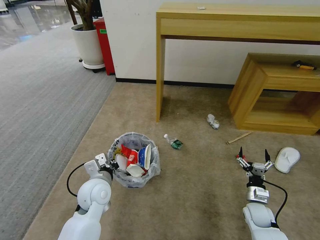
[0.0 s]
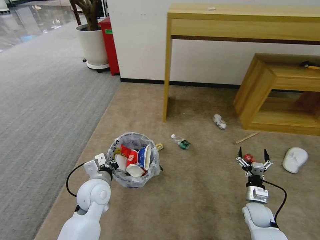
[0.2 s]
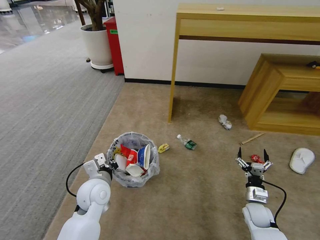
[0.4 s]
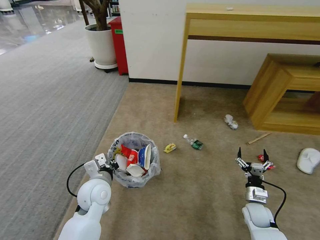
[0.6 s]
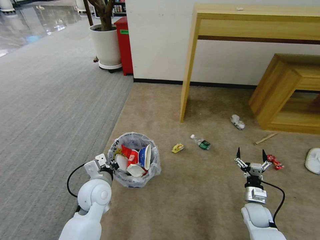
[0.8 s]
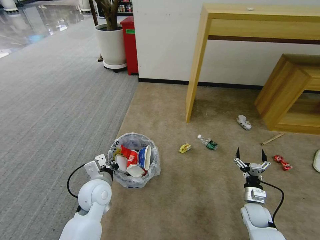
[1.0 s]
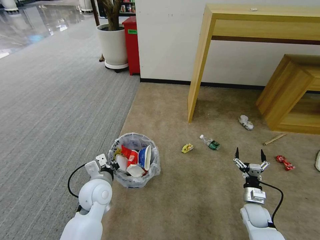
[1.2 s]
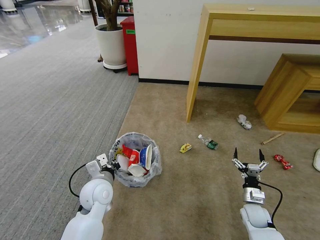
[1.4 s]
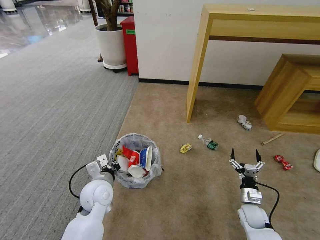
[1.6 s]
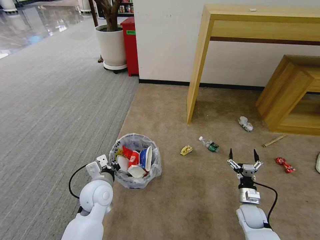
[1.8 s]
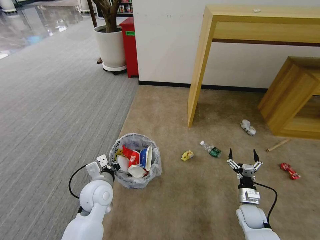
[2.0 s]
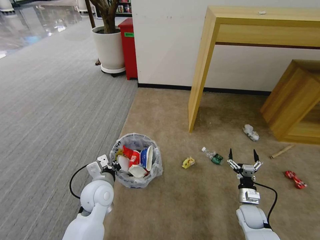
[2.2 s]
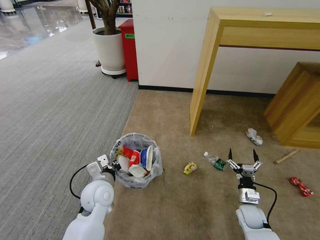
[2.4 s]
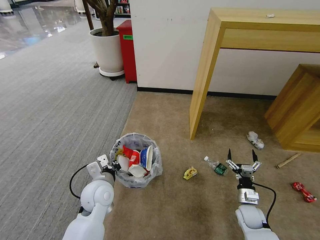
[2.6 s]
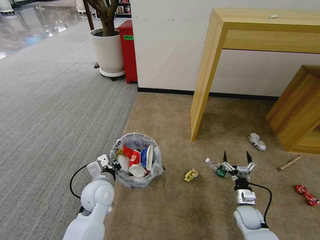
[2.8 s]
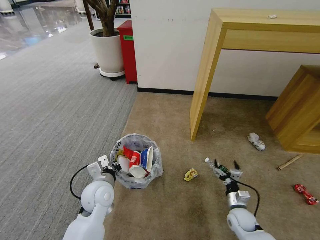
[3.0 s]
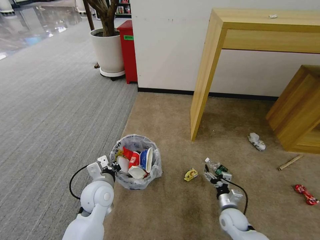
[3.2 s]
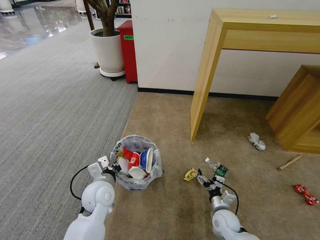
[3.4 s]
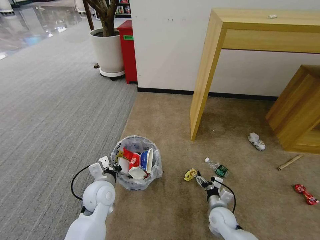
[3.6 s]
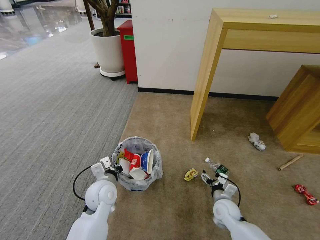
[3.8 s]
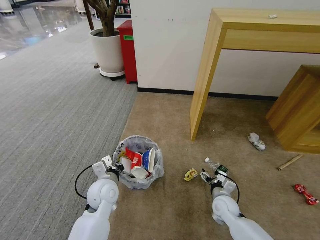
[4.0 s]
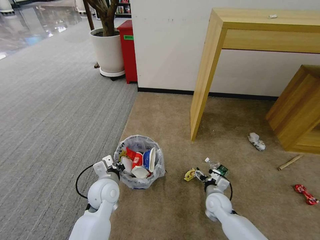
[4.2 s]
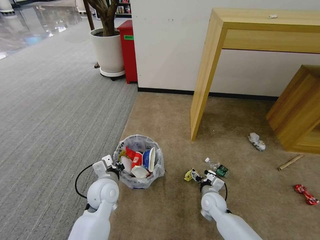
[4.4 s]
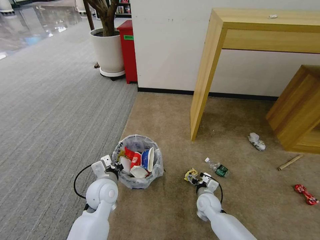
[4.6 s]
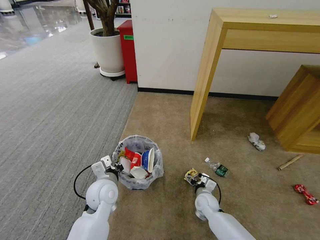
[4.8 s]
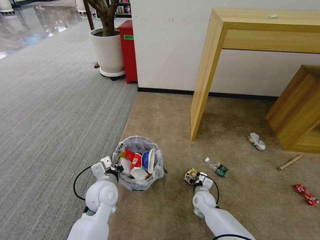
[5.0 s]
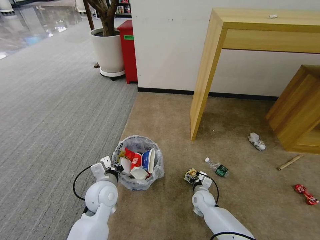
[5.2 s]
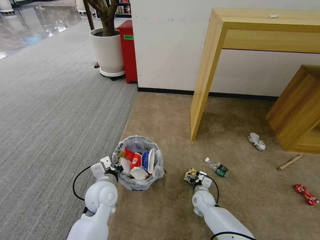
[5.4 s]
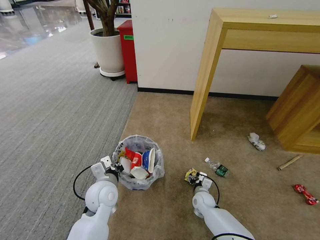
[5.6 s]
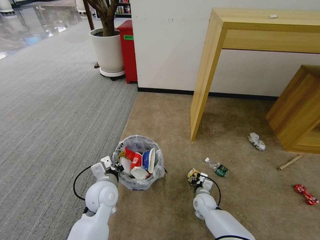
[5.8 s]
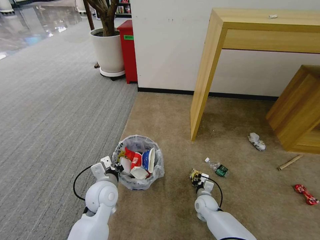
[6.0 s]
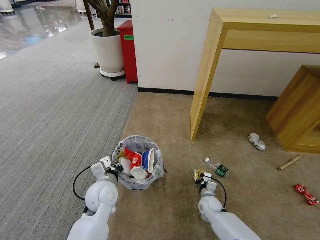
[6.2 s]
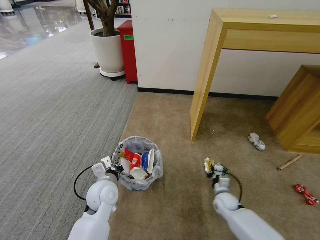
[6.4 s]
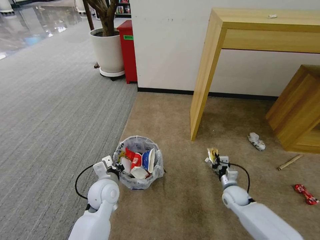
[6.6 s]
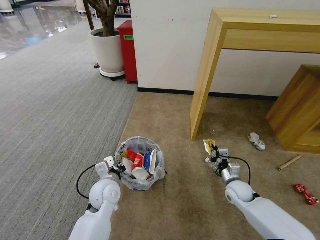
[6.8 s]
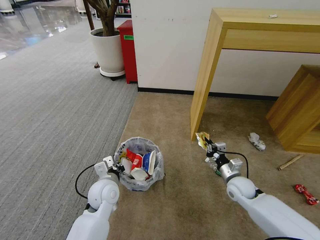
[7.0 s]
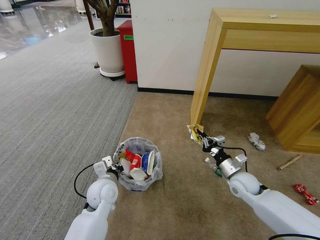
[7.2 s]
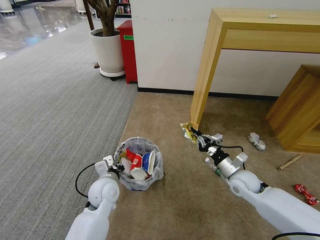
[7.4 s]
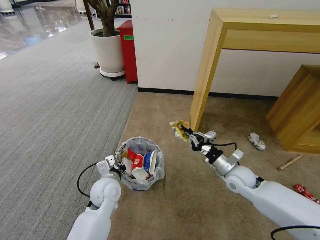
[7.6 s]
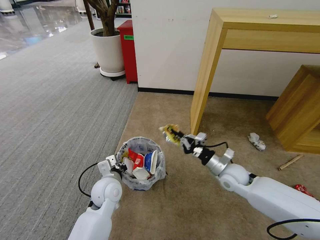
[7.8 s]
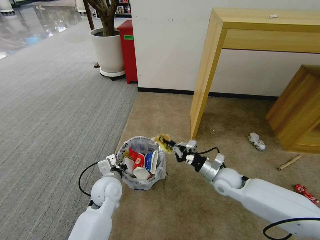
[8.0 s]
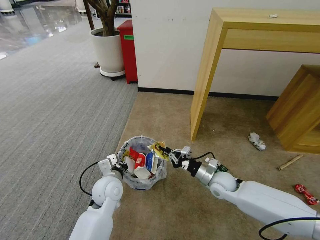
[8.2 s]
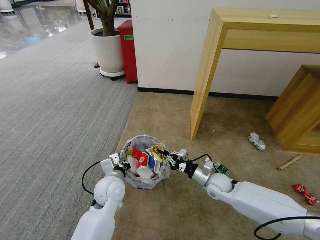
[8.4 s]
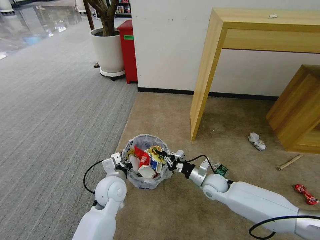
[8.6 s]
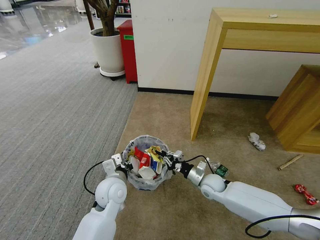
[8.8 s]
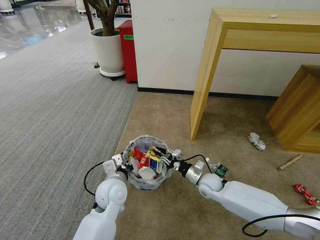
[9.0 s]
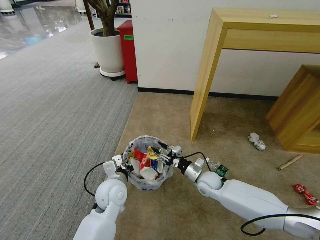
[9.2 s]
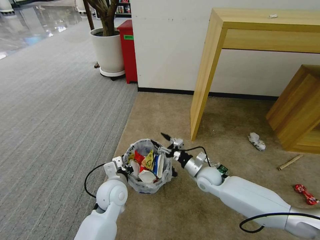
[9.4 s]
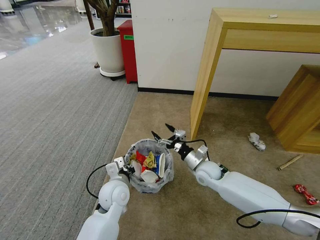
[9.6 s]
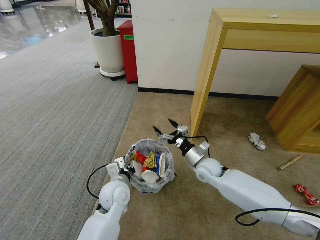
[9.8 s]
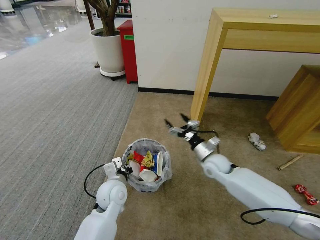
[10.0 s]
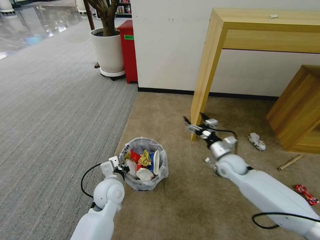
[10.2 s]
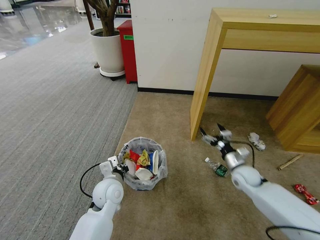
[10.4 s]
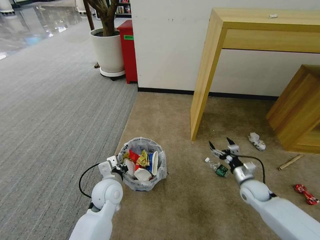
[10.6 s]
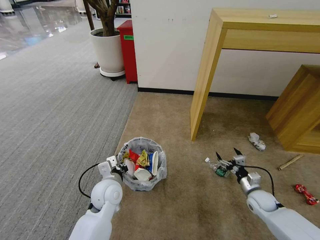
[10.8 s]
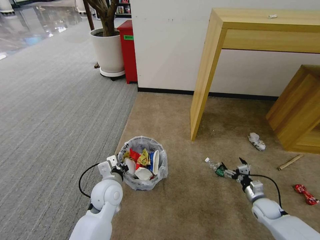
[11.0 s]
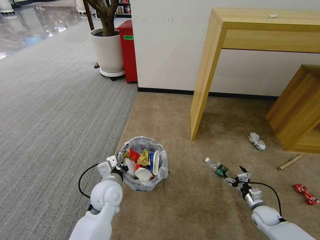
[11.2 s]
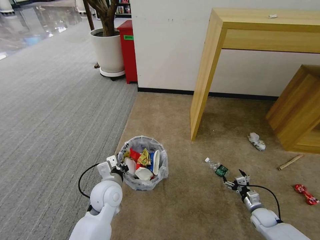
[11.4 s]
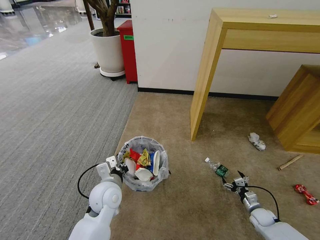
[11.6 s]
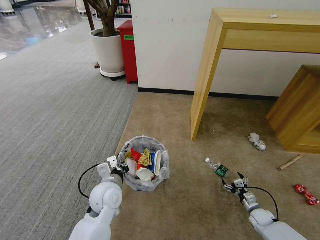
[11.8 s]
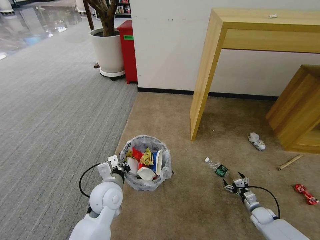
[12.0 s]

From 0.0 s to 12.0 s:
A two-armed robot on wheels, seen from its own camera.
Task of the whole recording: Pick up the trash bin and place the garbage on the floor into it.
From 3.0 s to 4.4 s: The right gripper heads to the left and forward, covering some 10 cm.
From 4.4 s to 6.0 s: The right gripper is displaced downward by roughly 10 cm, and closes its fingers.
From 6.0 s to 7.6 s: The right gripper moves upward, roughly 20 cm.
From 7.6 s to 9.0 s: The right gripper goes some 15 cm downward and to the left.
From 9.0 s to 10.4 s: The right gripper goes approximately 15 cm to the right, and opens its fingers.
From 10.4 s to 12.0 s: The right gripper heads downward, to the right and backward, covering approximately 25 cm.

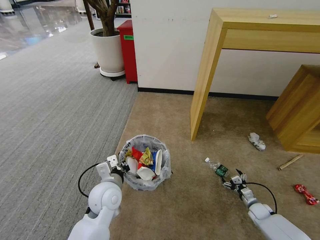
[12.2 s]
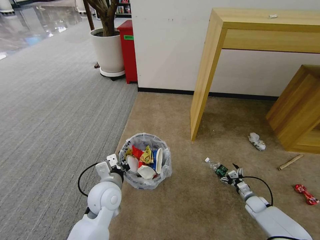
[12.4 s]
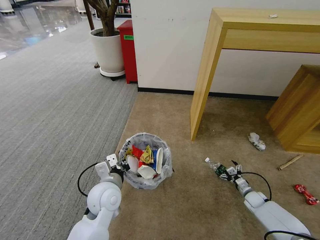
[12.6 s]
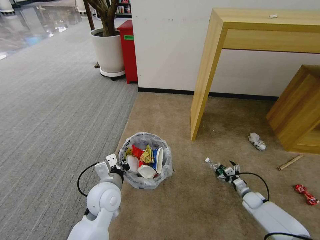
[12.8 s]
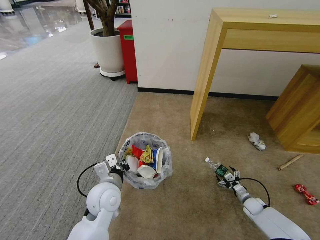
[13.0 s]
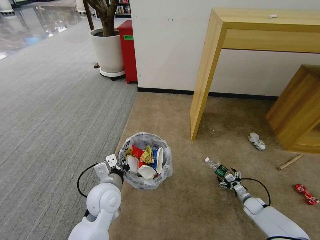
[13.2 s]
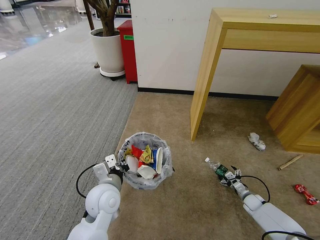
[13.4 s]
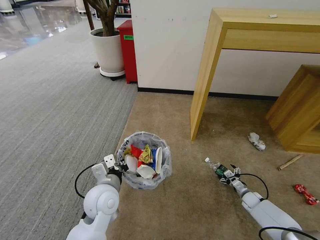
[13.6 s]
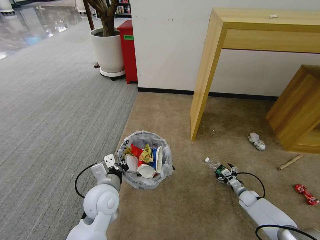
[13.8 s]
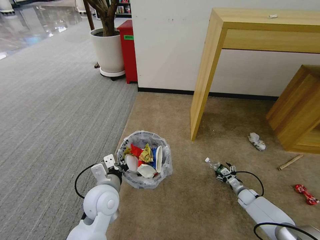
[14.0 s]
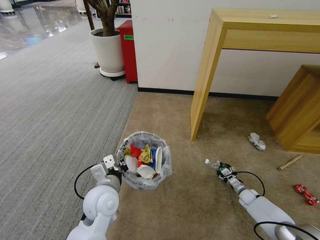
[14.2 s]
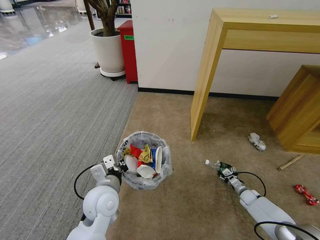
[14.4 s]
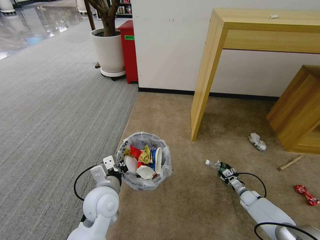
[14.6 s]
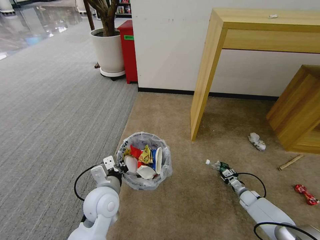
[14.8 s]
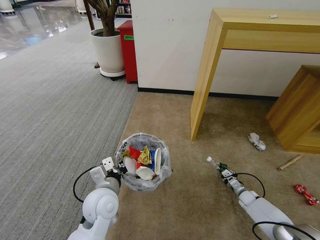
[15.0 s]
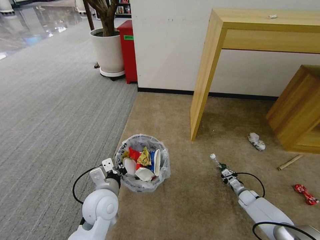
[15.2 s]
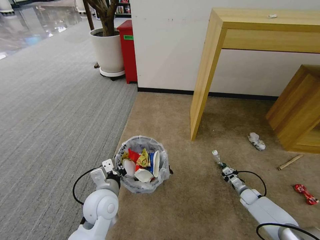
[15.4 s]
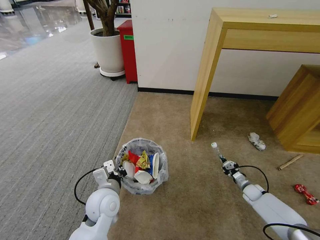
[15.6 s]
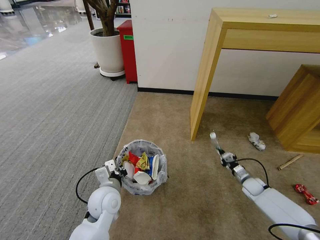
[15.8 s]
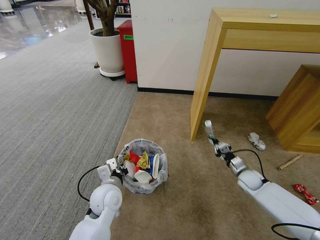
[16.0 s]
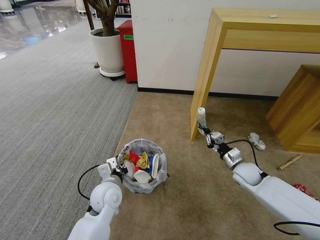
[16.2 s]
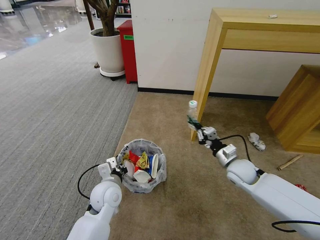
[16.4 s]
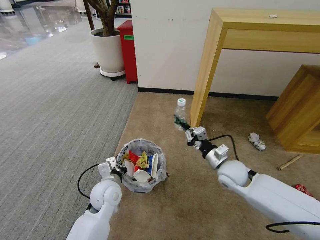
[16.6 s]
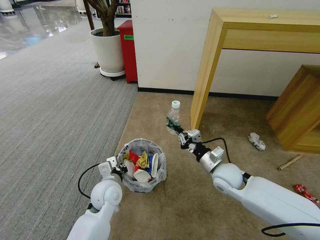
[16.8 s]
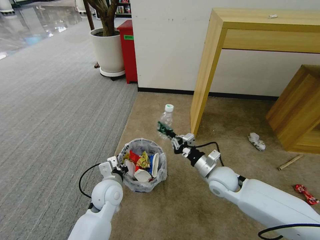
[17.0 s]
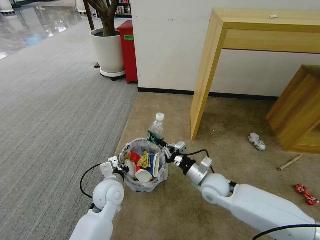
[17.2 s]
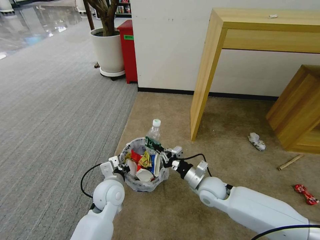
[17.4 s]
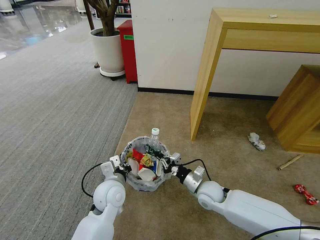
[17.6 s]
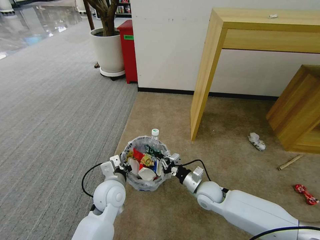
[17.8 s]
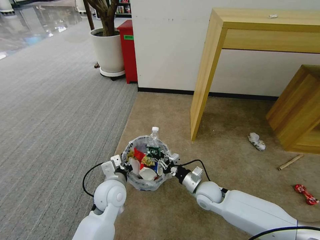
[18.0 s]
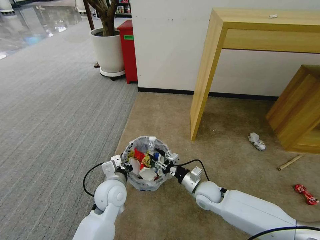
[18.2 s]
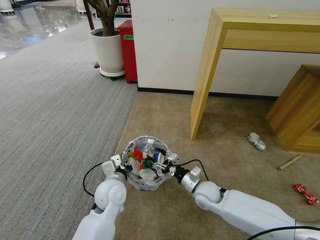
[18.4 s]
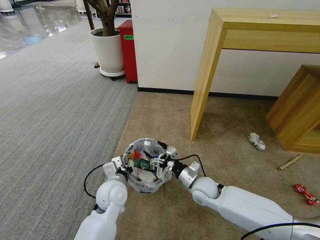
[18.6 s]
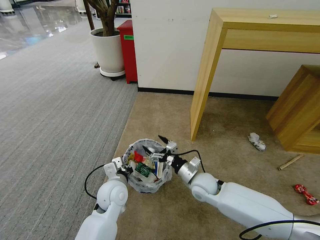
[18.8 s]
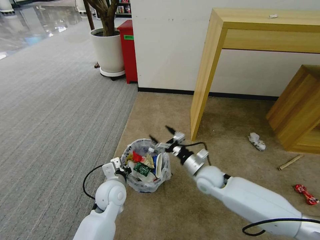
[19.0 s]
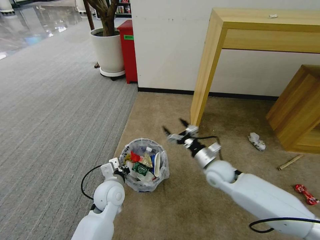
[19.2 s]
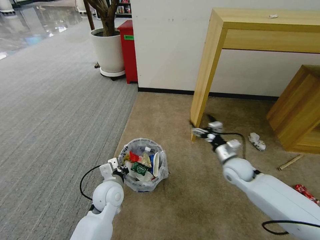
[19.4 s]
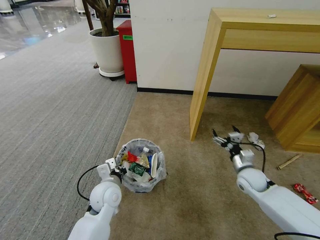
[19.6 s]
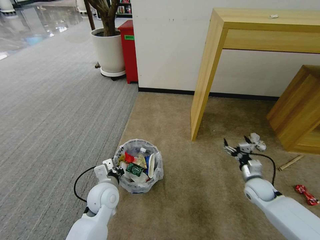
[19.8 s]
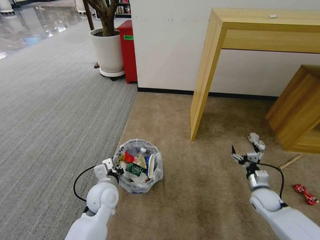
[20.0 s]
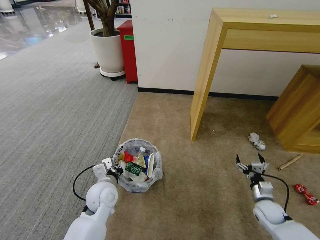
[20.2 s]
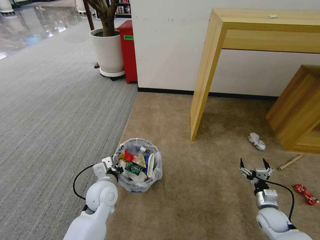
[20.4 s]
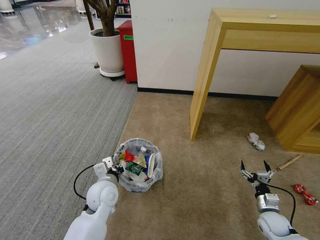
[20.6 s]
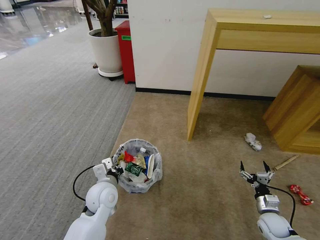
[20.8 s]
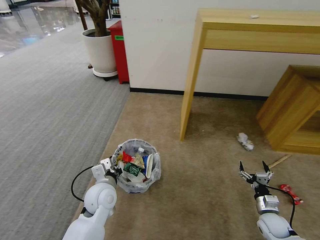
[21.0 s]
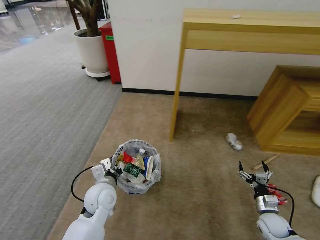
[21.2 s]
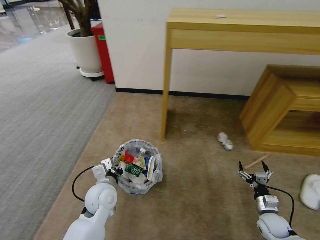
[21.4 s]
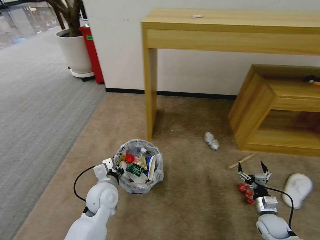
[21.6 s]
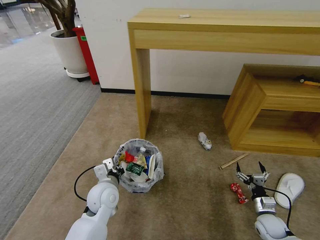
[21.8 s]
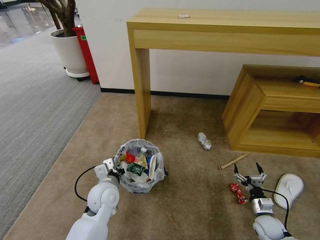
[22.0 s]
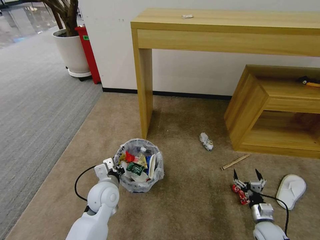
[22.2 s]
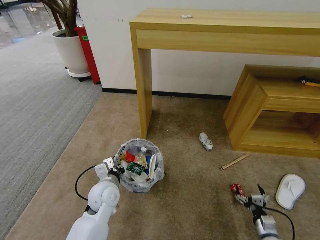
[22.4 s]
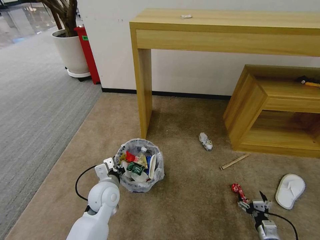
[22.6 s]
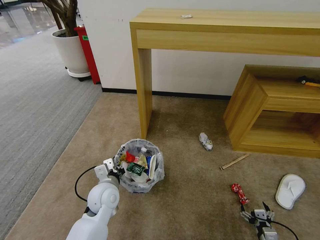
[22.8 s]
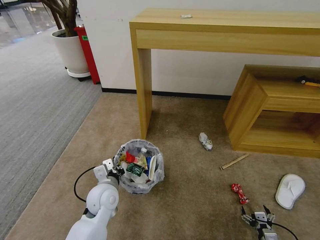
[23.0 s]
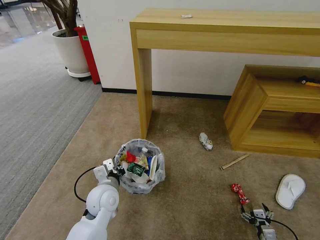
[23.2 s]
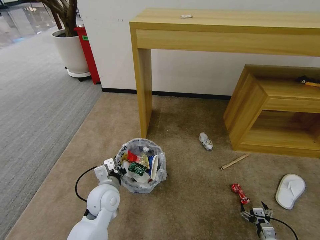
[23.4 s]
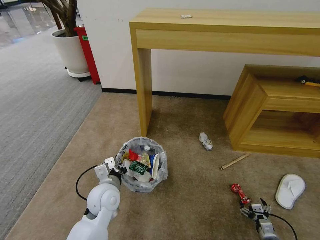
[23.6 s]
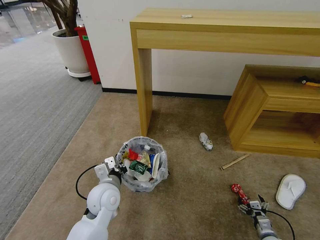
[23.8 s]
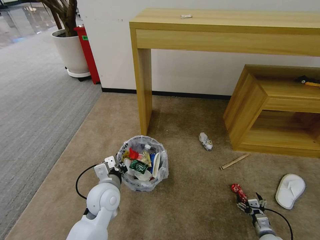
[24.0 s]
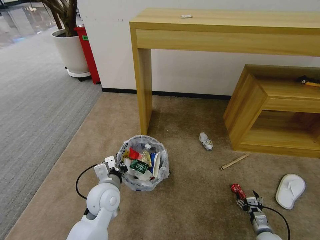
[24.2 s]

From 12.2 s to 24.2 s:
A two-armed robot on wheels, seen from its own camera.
Task of the whole recording: Pick up the trash bin and place the garbage on the floor into it.
From 12.2 s to 13.8 s: The right gripper is displaced forward by about 5 cm.
From 13.8 s to 15.2 s: The right gripper closes.
From 15.2 s to 16.6 s: The right gripper goes roughly 35 cm upward and to the left. Meanwhile the left gripper changes place by approximately 5 cm.
From 16.6 s to 18.2 s: The right gripper travels downward and to the left by approximately 10 cm, and opens its fingers.
From 18.2 s to 19.8 s: The right gripper is displaced to the right by approximately 20 cm, and opens.
From 19.8 s to 21.2 s: The right gripper goes some 15 cm backward and downward.
From 21.2 s to 22.6 s: The right gripper travels backward by about 10 cm.
From 22.6 s to 24.2 s: The right gripper shifts by approximately 5 cm.
